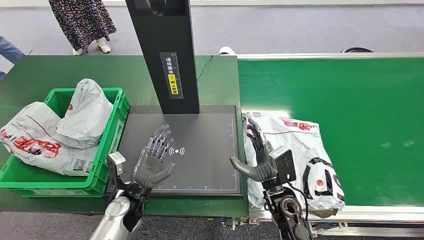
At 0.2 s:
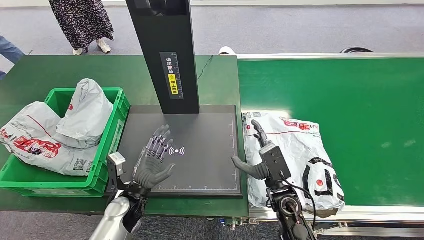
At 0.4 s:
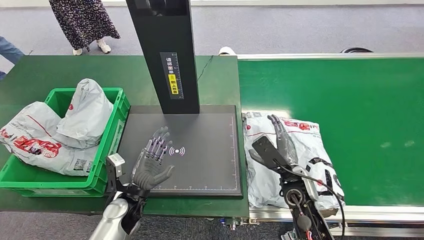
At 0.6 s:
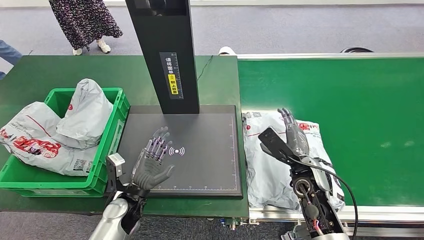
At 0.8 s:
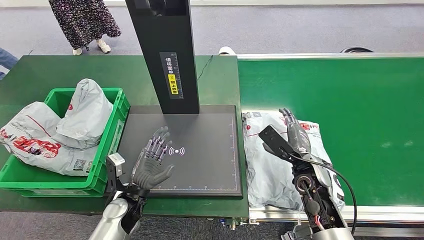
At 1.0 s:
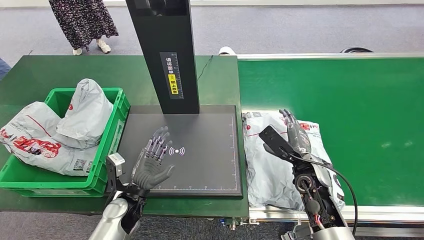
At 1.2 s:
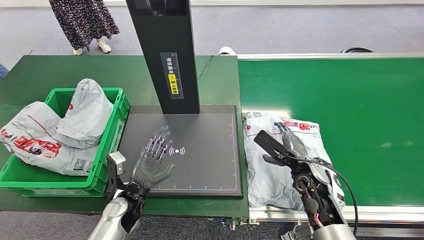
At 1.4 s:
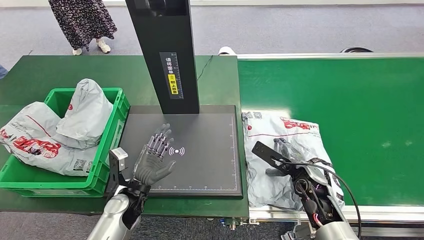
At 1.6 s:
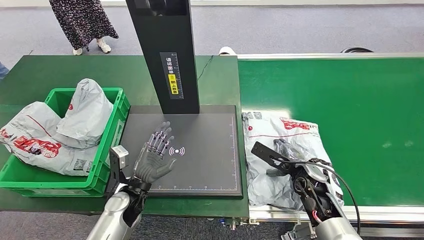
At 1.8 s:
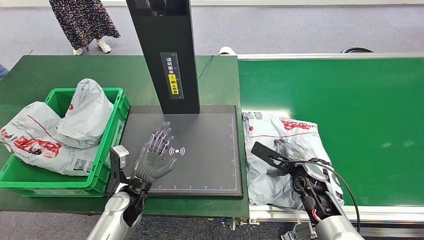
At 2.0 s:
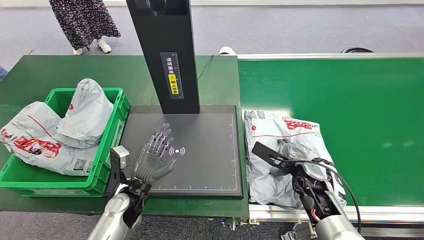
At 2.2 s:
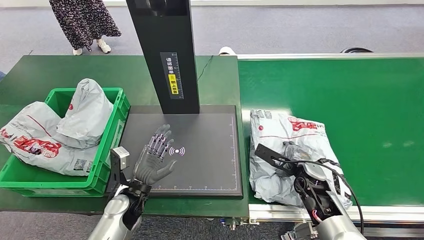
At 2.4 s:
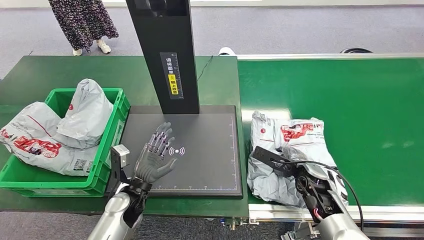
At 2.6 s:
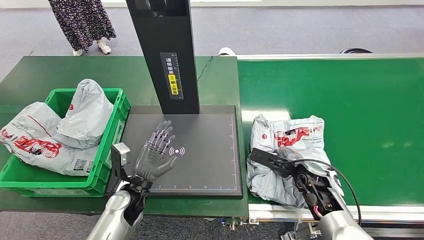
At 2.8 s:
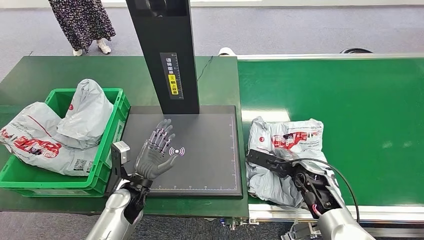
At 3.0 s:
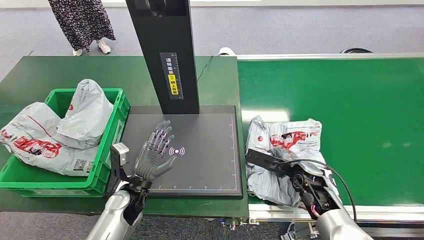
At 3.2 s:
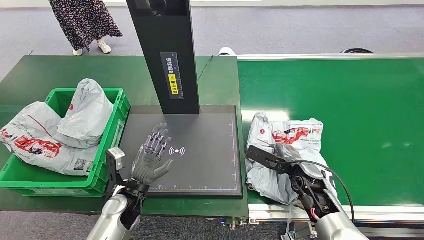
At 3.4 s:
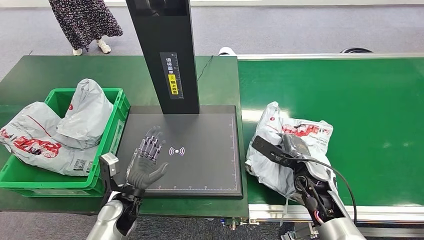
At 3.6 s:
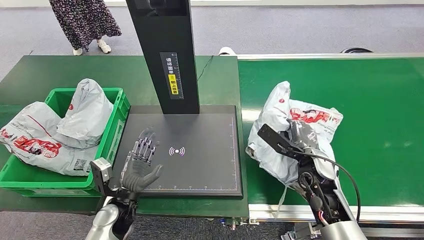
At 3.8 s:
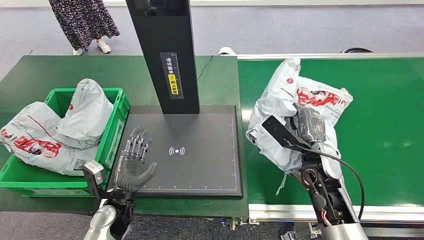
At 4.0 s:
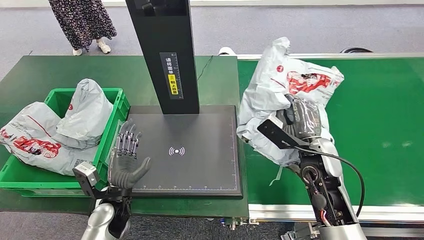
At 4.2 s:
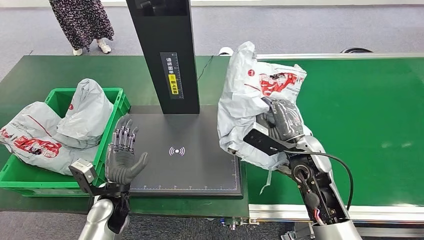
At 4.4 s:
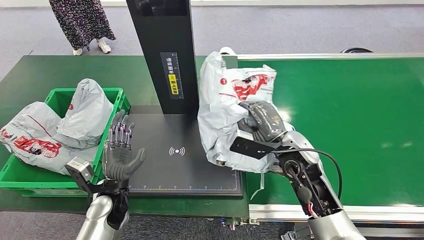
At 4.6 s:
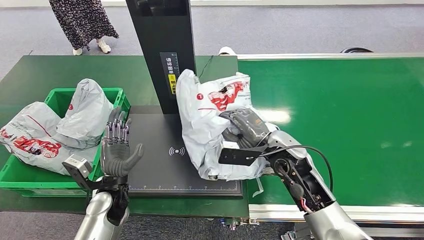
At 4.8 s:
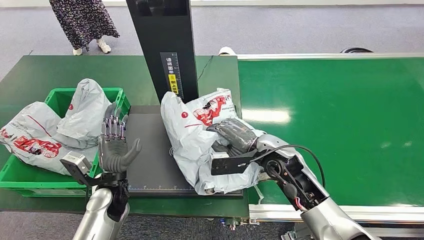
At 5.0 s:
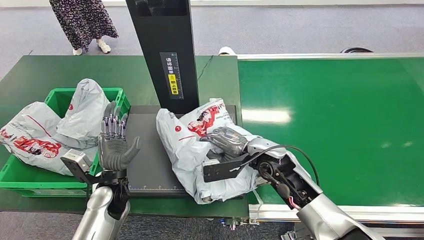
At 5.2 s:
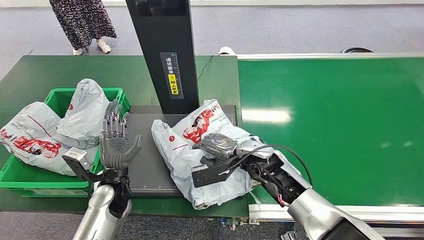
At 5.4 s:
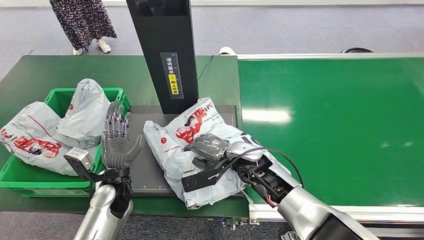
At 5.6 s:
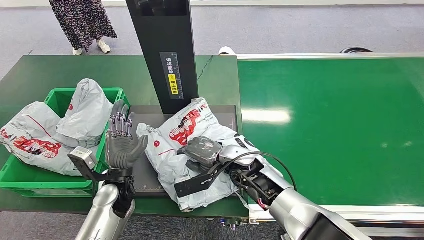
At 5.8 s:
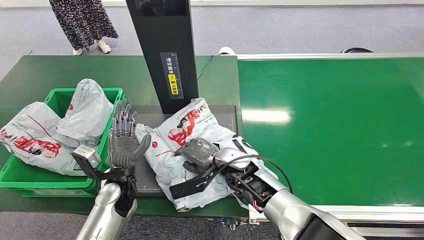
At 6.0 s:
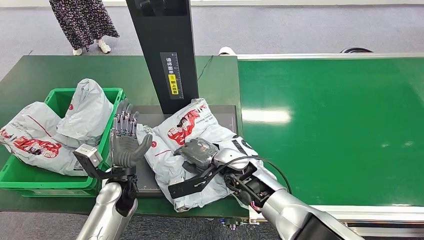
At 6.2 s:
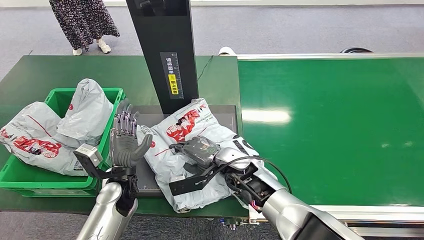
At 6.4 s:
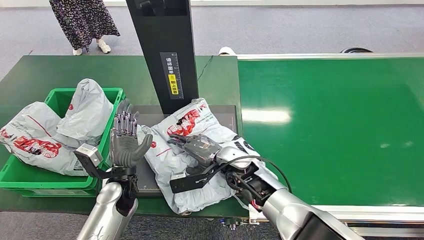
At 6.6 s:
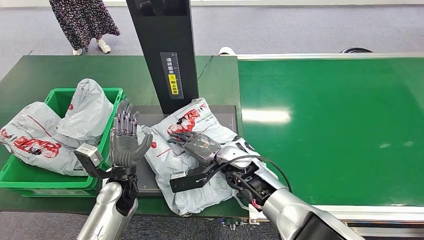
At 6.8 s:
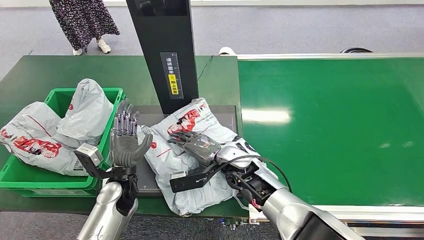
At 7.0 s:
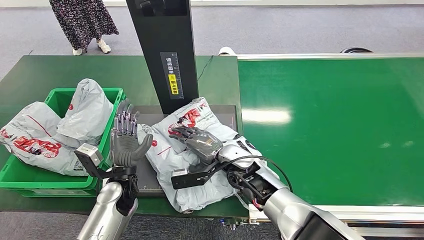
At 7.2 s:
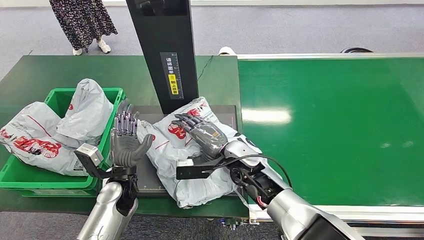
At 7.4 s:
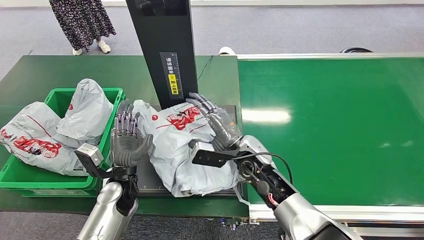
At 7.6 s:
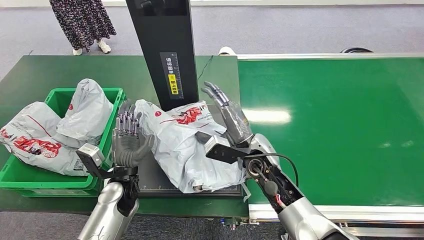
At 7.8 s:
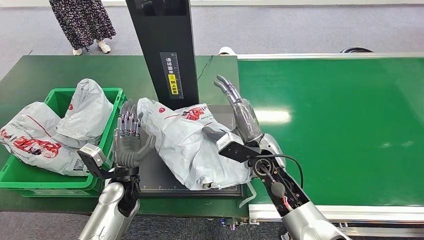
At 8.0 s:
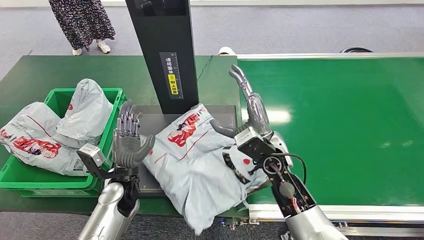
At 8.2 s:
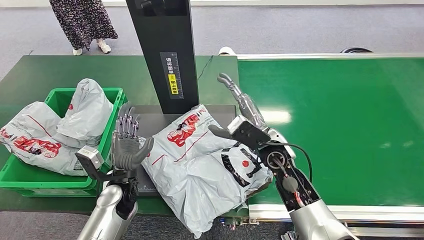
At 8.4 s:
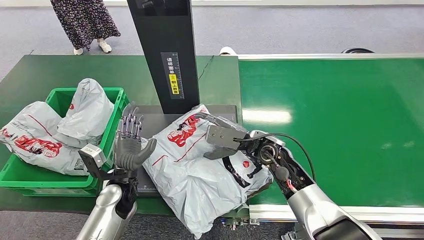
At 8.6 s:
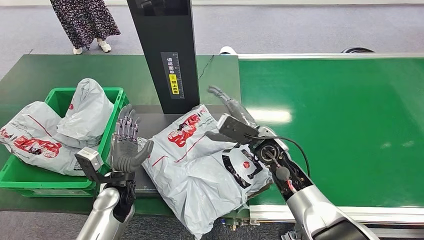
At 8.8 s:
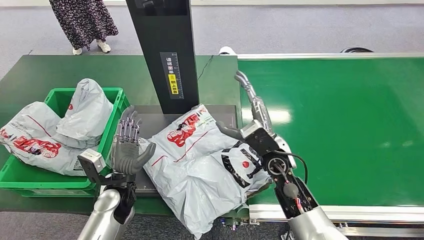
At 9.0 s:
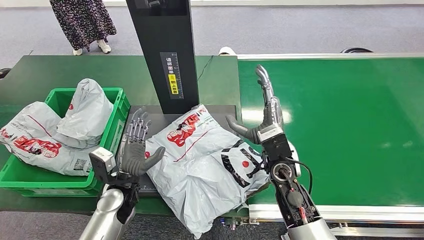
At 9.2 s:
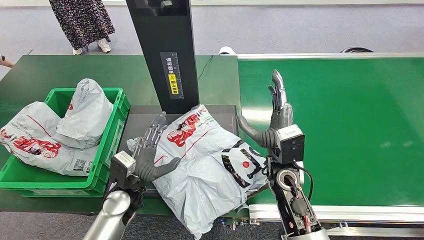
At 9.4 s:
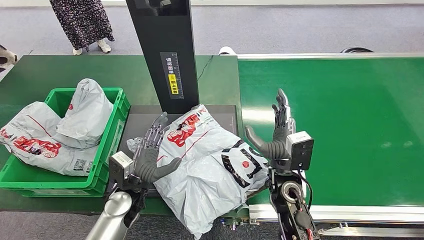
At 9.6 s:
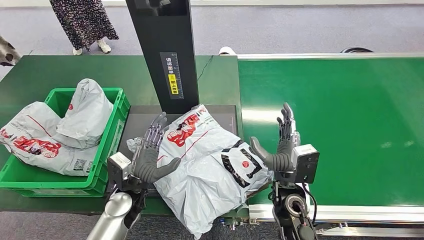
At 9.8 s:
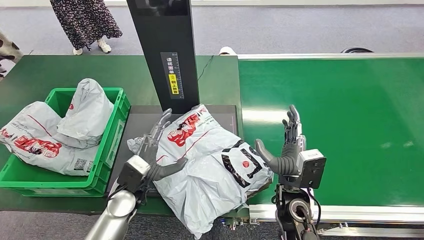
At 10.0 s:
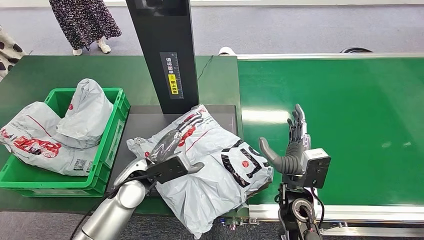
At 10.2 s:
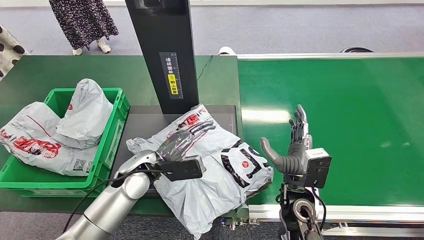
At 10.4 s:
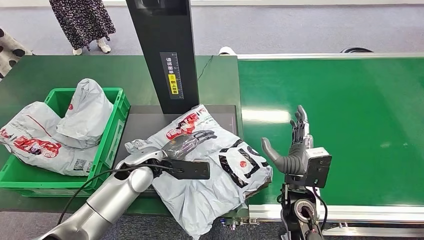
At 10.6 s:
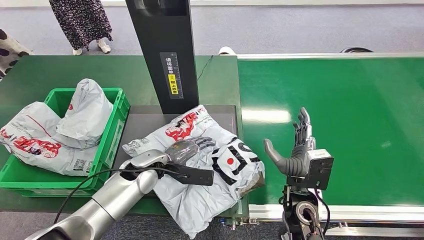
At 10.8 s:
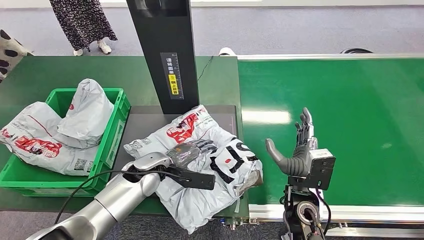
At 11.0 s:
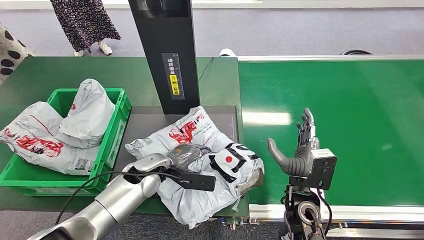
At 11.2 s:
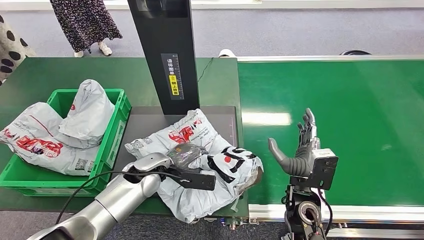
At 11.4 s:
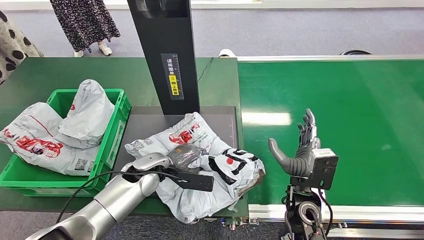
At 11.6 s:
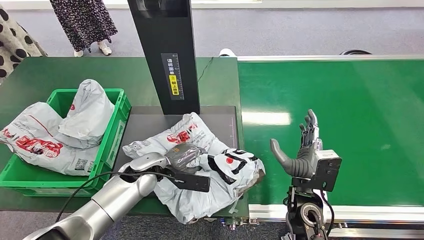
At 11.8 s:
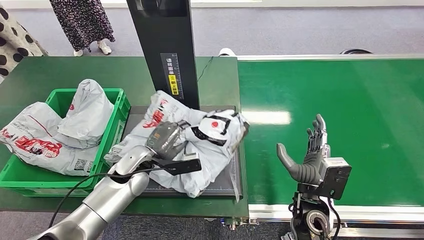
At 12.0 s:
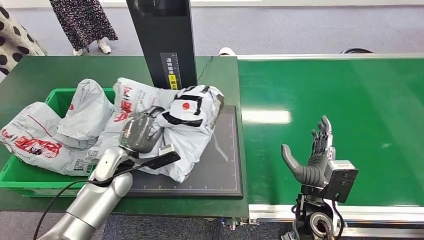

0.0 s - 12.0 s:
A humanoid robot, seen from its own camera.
Task of the whole recording: Weigh the package on the weighing device and place it in the left basket.
Step, 0.0 s - 4.0 s: Pick up the package from the conveyor belt.
Step, 4.2 s - 8.6 s: Place the package onto the inbound machine.
1.6 s - 3.0 s: The hands move only a little.
6.0 s - 7.6 s: The right hand shifts by some 5 cm.
9.0 s - 10.4 s: The left hand goes about 10 cm forward and upward. The right hand shifts roughly 10 cm backward and downward.

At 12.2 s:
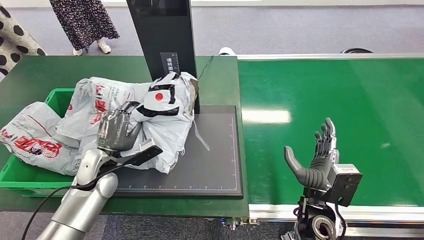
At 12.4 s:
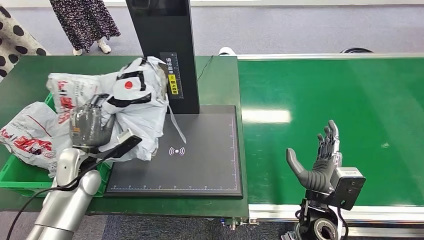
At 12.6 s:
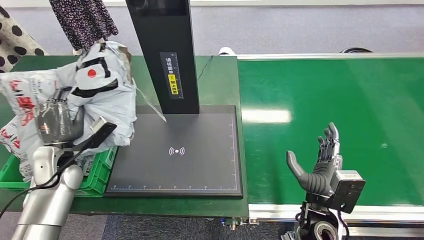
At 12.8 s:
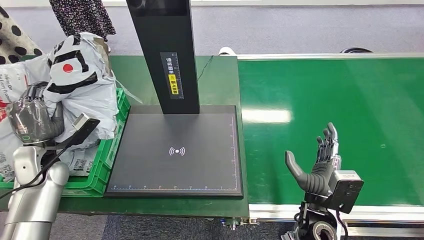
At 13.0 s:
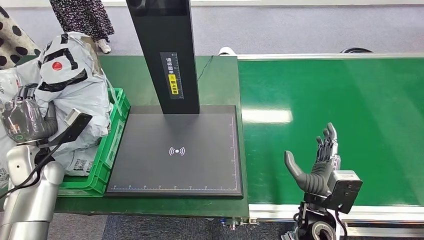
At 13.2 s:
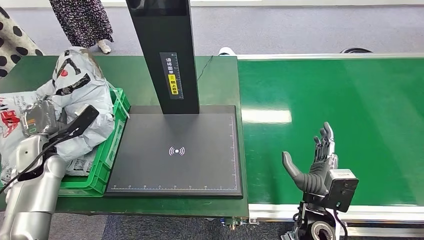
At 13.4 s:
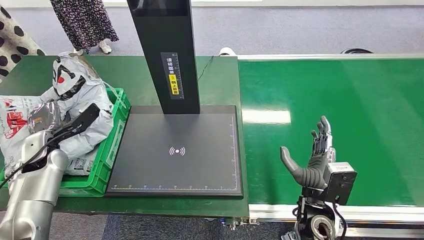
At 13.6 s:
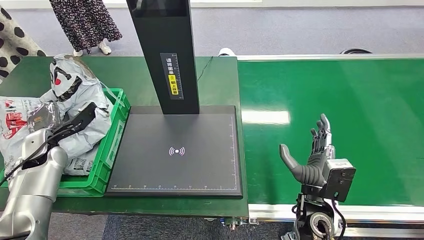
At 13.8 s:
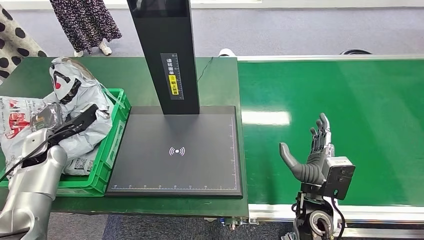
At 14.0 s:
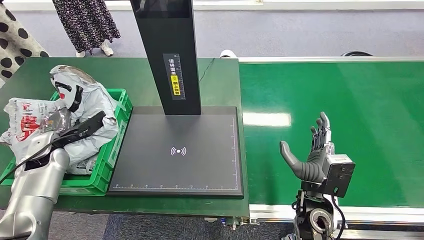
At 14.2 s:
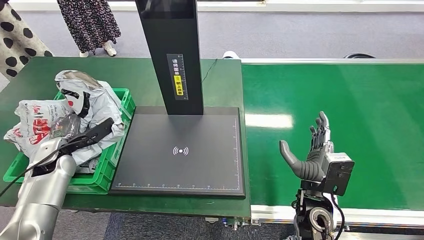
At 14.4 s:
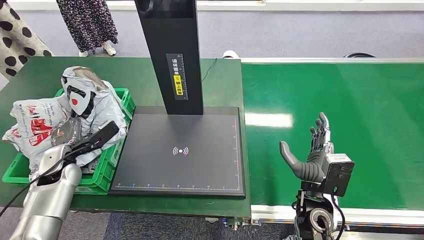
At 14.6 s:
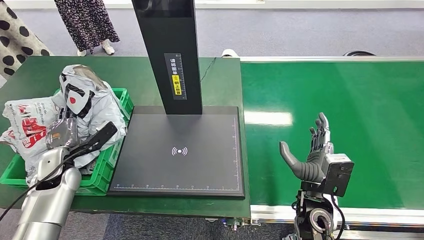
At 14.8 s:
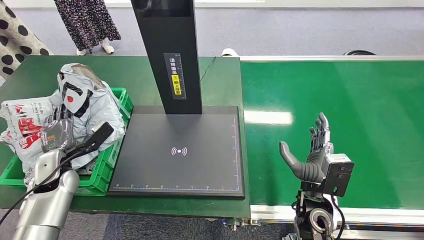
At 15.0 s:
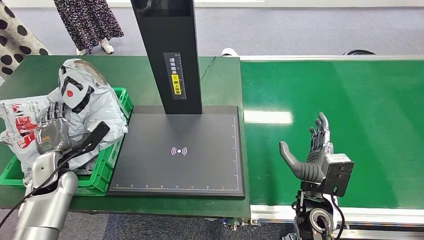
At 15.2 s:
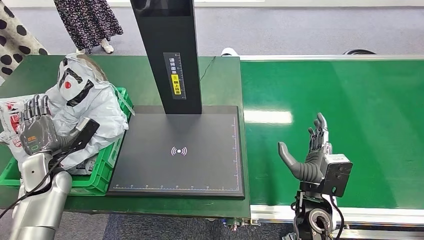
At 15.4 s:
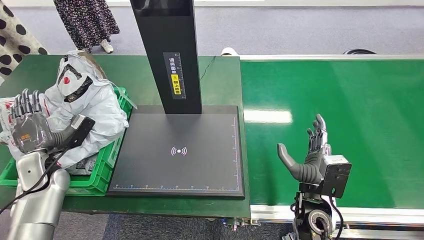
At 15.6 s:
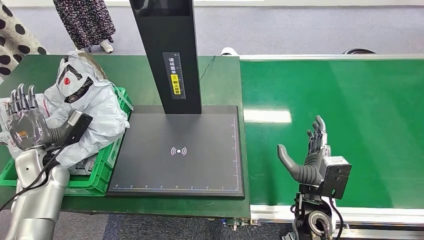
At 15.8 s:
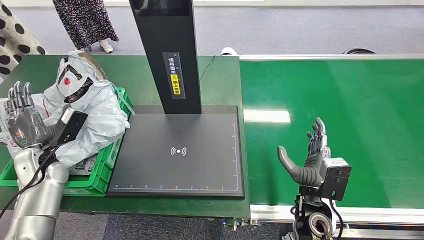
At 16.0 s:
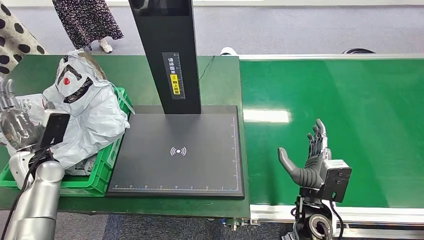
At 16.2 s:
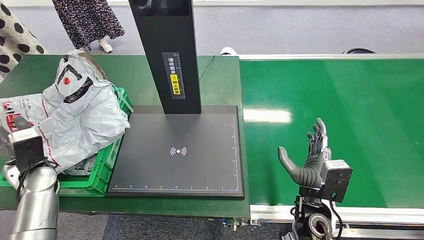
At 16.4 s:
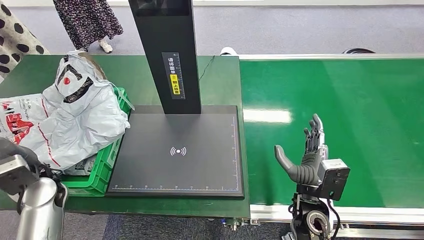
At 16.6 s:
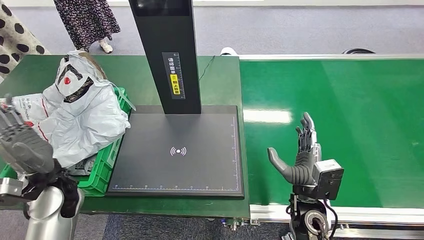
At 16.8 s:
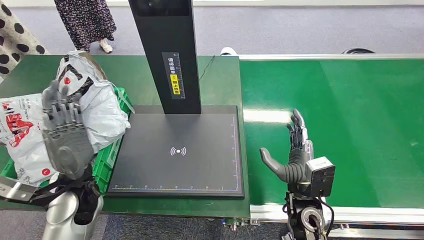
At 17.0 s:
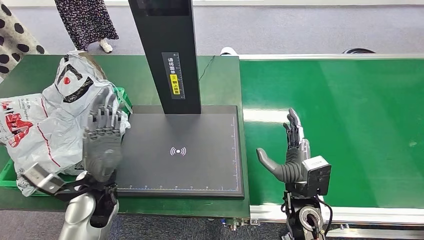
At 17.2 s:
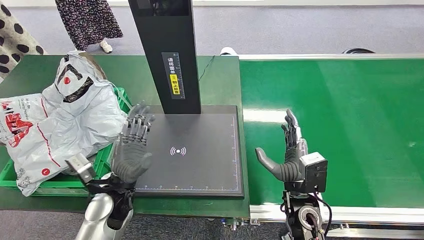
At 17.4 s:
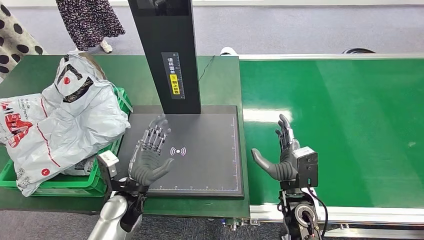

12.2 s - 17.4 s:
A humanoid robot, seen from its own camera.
Task of the whole recording: Weigh the package on the weighing device and place it in the left basket.
Step, 12.6 s - 17.4 s: Place the package into the parcel locker.
